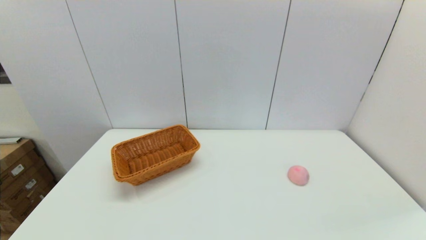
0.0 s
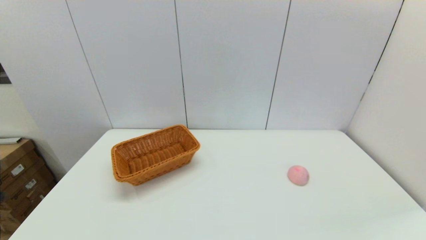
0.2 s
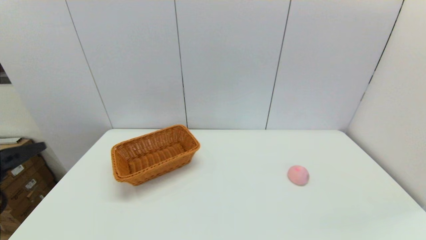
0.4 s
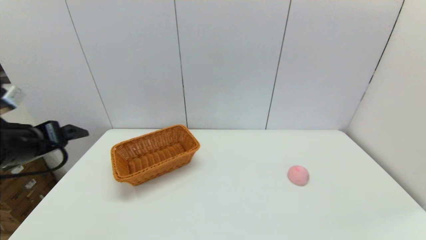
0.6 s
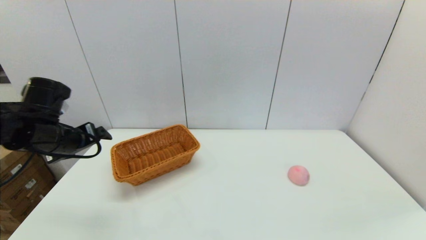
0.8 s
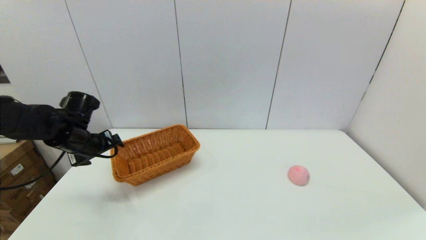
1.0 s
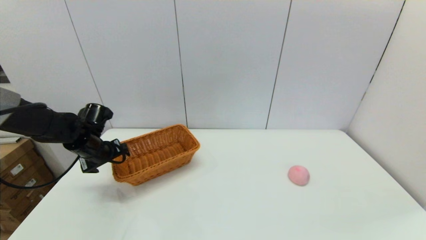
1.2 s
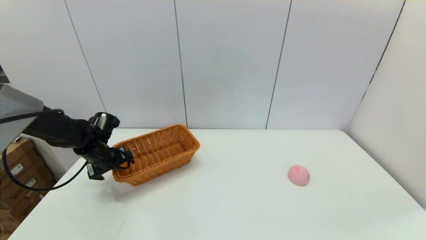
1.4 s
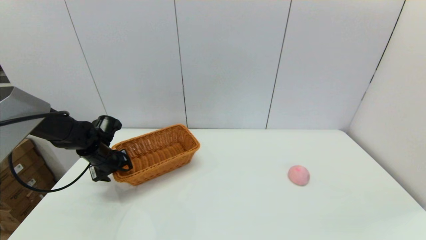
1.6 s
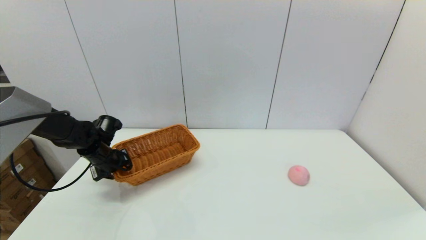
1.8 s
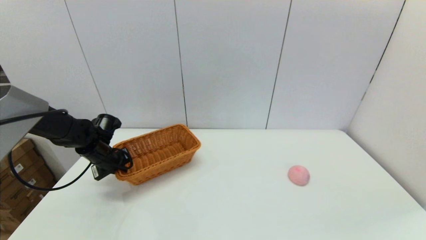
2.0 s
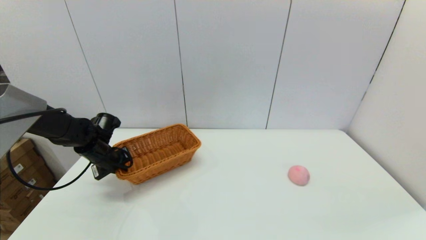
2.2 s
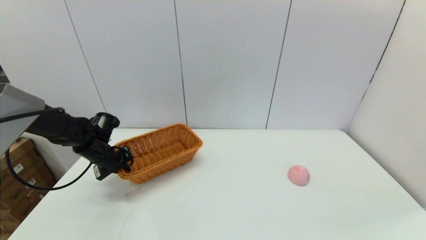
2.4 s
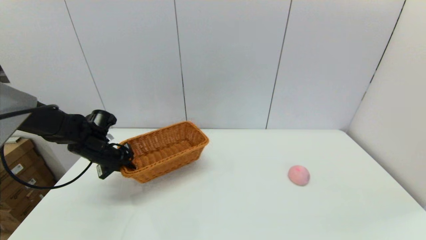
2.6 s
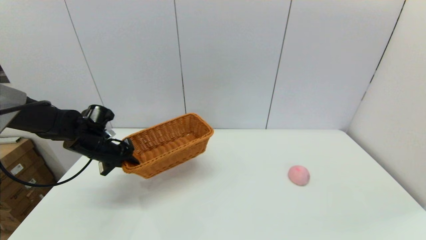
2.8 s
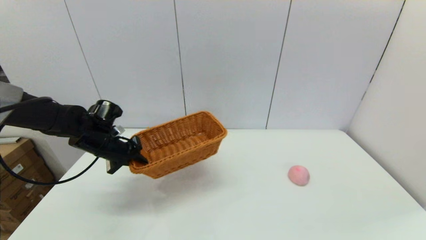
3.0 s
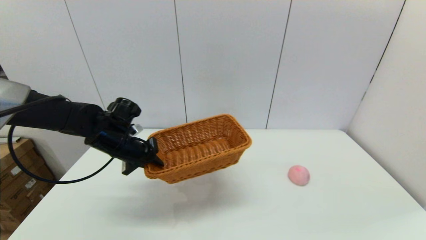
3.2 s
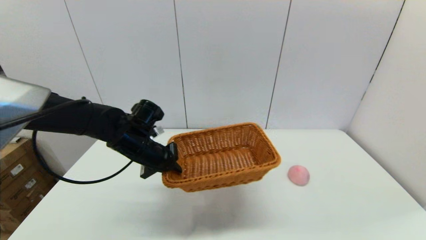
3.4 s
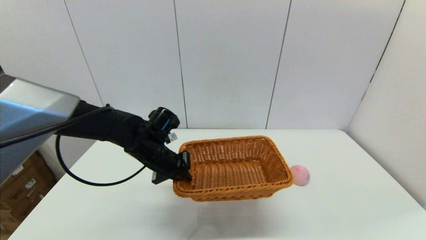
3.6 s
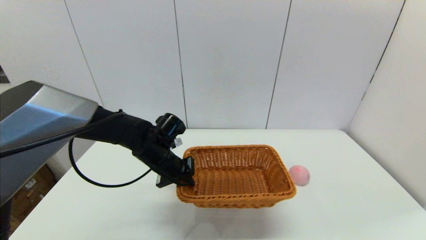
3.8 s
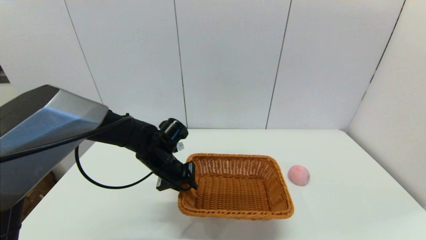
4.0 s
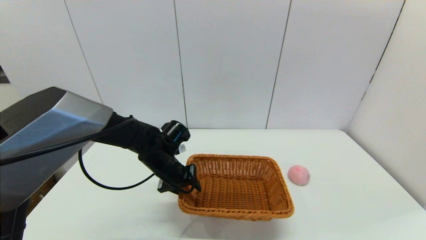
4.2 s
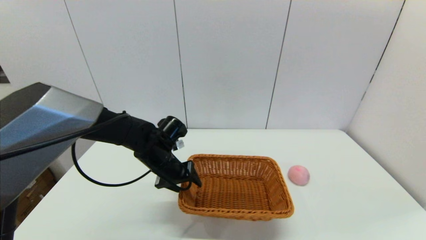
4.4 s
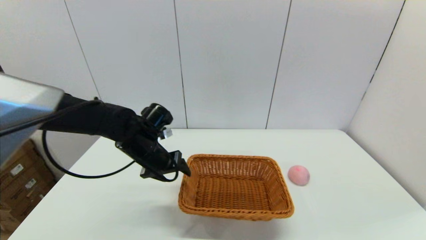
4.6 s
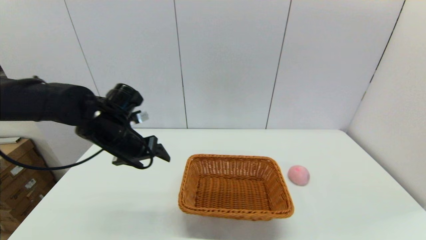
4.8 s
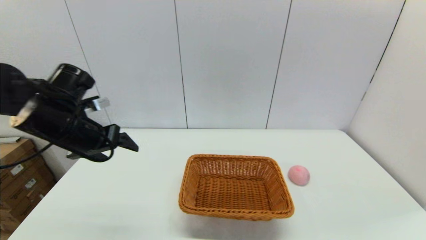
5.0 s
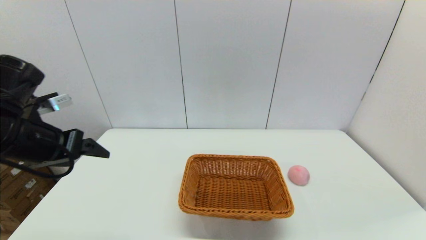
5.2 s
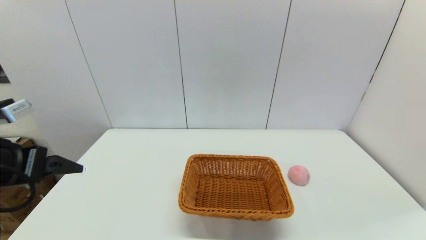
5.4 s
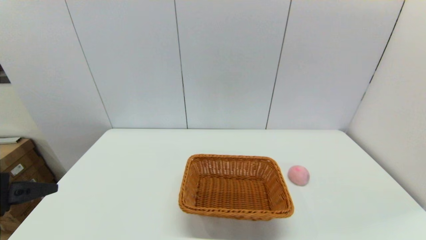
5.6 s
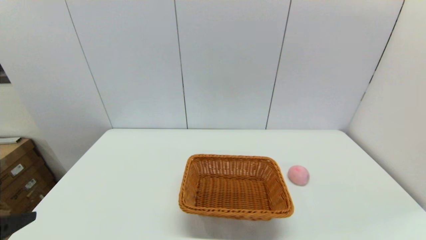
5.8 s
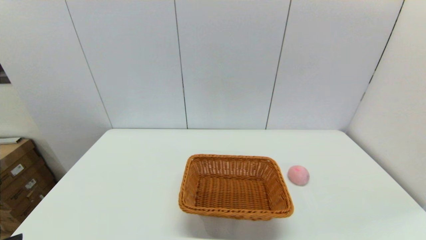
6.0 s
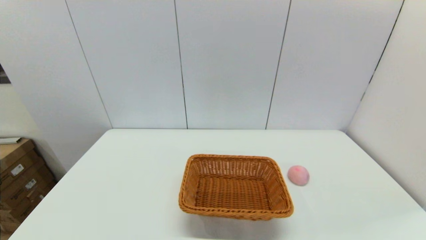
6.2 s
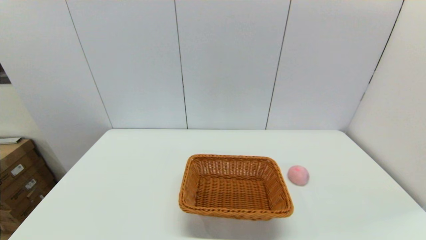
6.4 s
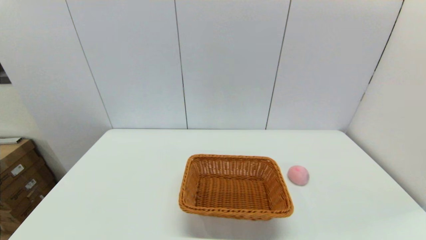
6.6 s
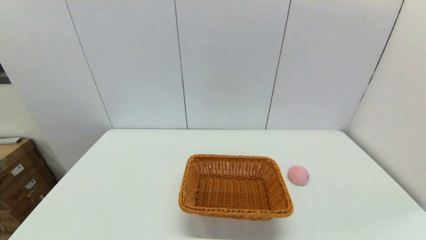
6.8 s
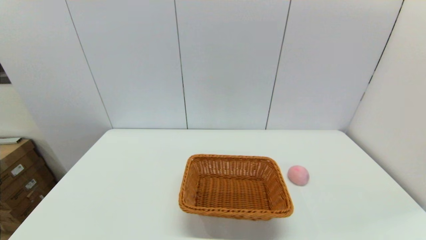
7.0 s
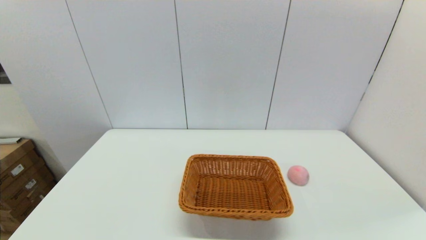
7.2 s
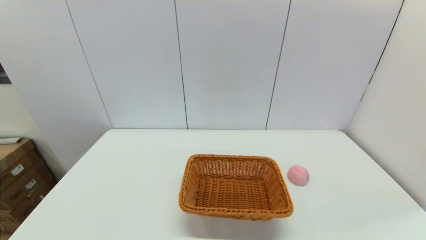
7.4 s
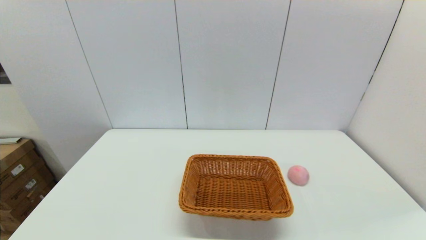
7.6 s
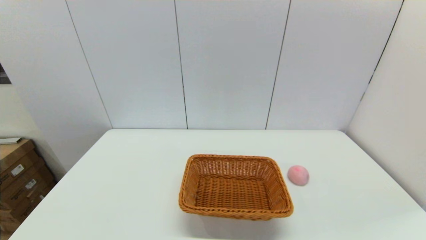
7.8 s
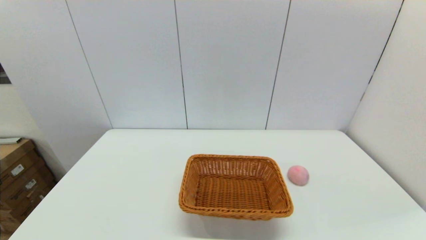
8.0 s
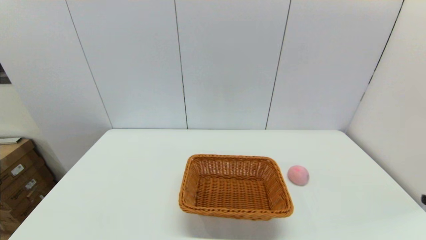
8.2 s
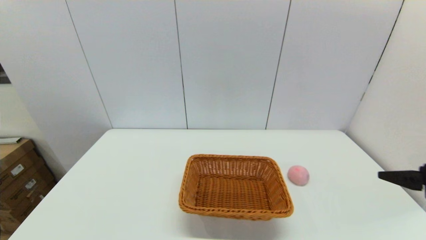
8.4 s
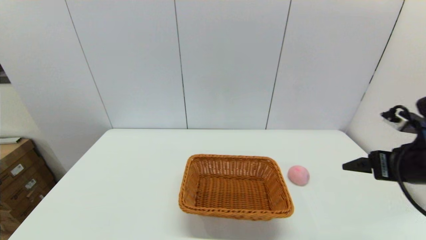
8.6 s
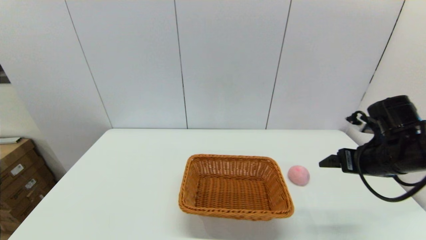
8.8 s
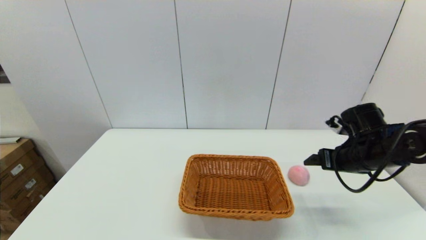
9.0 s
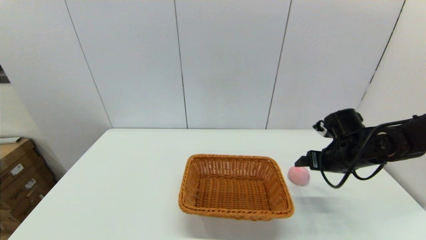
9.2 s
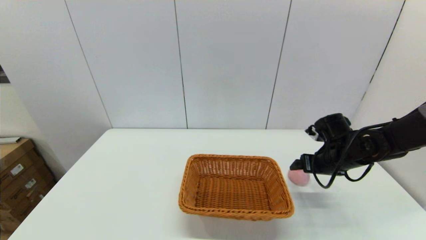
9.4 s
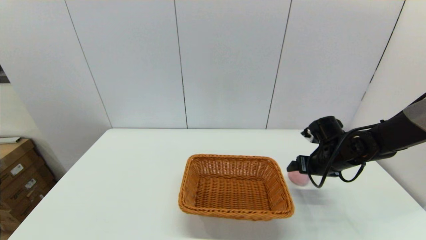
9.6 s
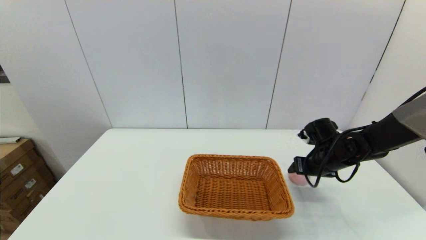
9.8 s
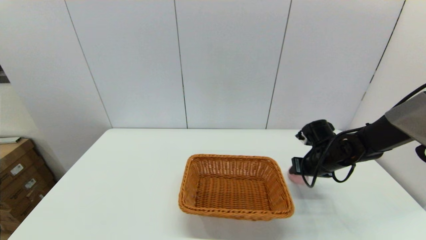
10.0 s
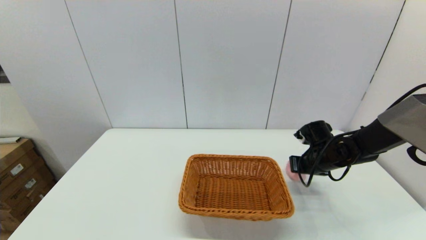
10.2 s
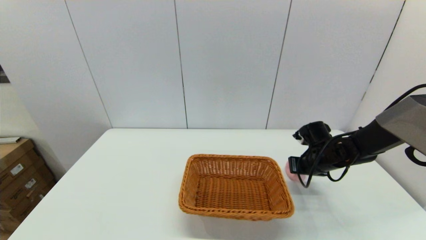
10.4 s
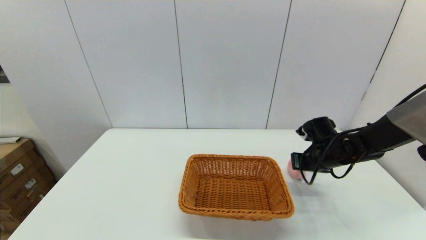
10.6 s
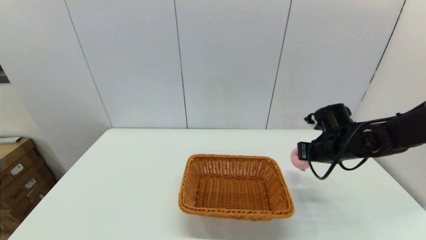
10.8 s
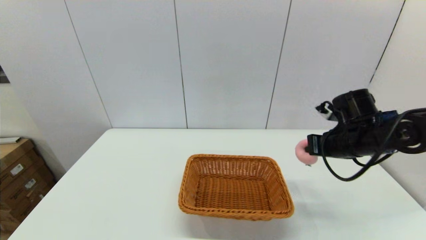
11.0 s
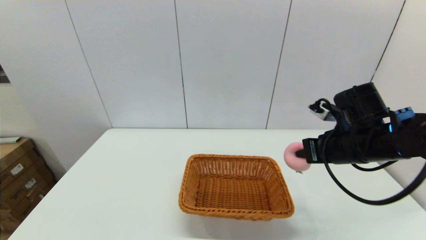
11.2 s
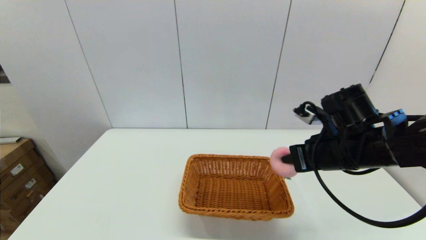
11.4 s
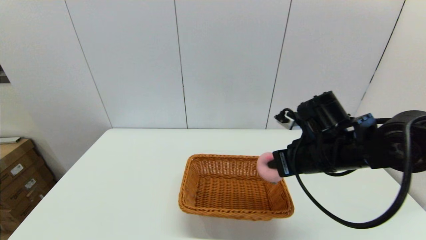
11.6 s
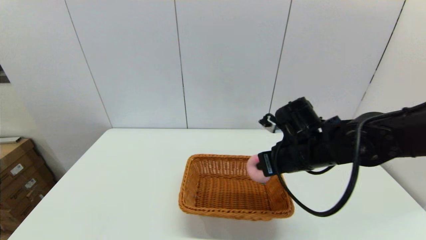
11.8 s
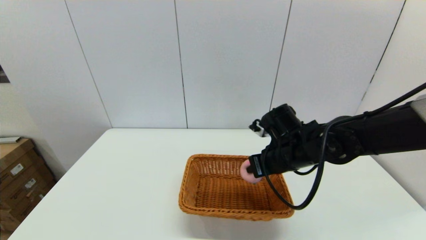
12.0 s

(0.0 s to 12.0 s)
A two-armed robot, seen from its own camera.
Step, 0.0 s - 2.2 s: Grasp the light basket with the left gripper.
Step, 2.4 s - 4.2 s: Place the light basket on the middle of the table with the left gripper.
Step, 4.4 s - 10.4 s: Grasp the peach with the right gripper.
0.0 s - 1.6 s: The left gripper travels forward by some 40 cm.
1.6 s - 3.0 s: The left gripper is displaced upward by roughly 5 cm, and closes its fingers.
3.0 s - 4.4 s: The left gripper travels to the right by some 15 cm, and opens up.
4.4 s - 6.0 s: The left gripper is displaced backward, to the left and upward by about 35 cm.
7.6 s - 9.0 s: The right gripper is displaced forward by some 35 cm.
9.0 s - 10.4 s: The right gripper travels downward and forward by about 10 cm, and closes up.
10.4 s - 12.0 s: The right gripper is displaced to the left, upward and backward by about 20 cm.

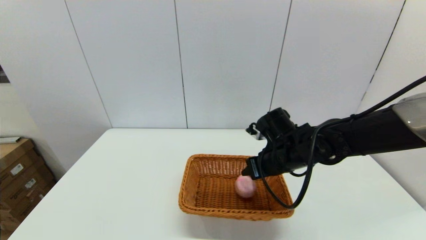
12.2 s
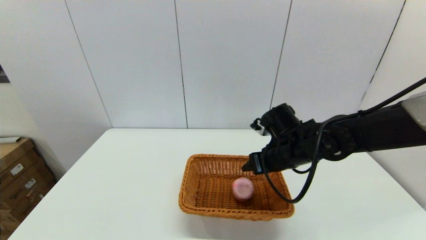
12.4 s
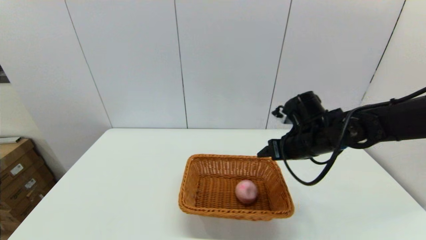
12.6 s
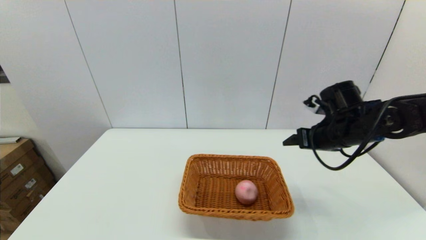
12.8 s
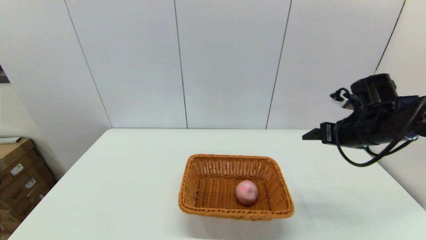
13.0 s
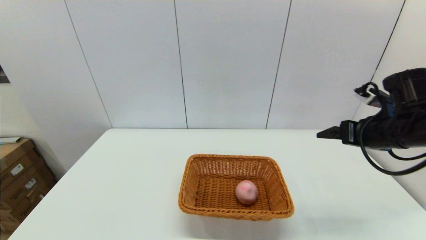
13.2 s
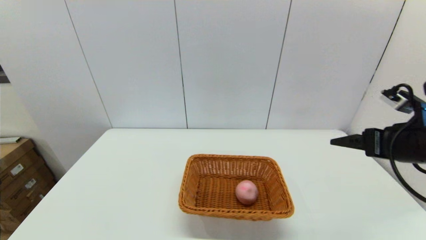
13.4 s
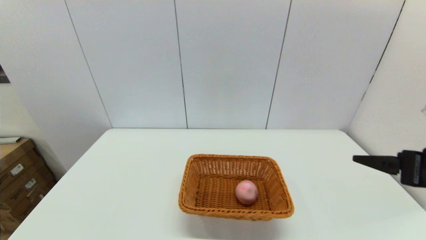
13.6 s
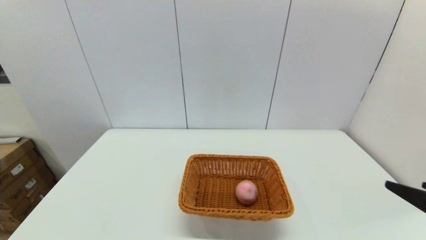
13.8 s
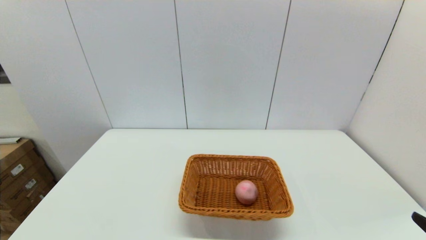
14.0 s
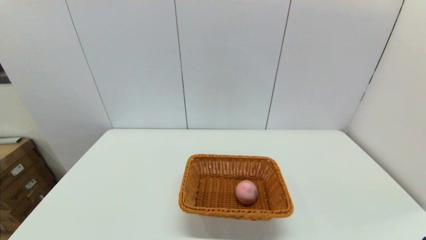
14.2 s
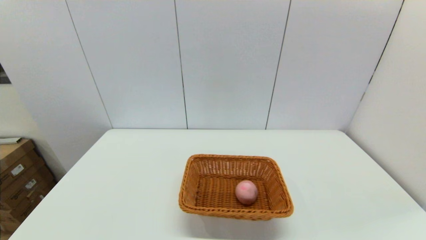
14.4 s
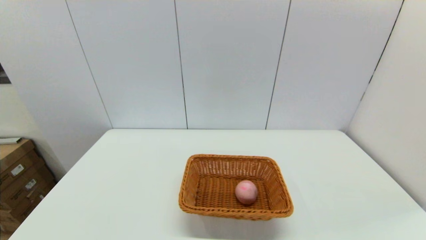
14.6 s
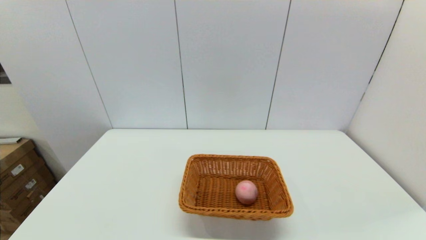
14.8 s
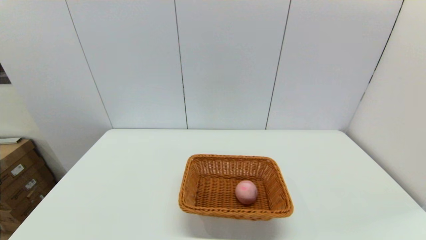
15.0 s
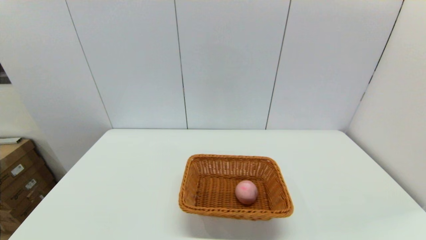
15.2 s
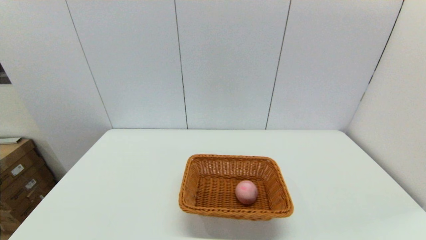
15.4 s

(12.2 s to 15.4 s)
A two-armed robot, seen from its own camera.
12.2 s - 13.8 s: The right gripper travels backward and to the right by roughly 30 cm, and opens.
13.8 s - 15.4 s: The right gripper is displaced downward and backward by approximately 15 cm.

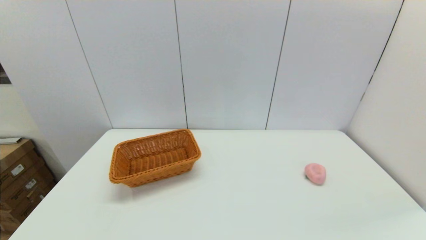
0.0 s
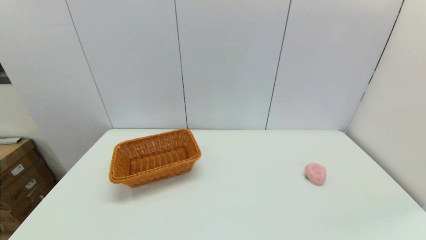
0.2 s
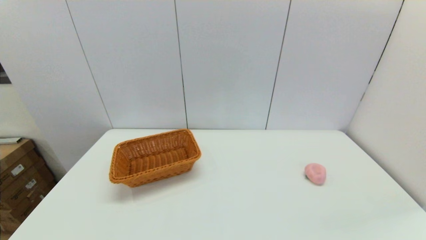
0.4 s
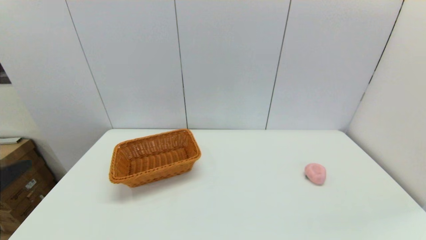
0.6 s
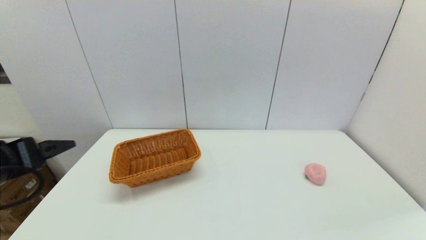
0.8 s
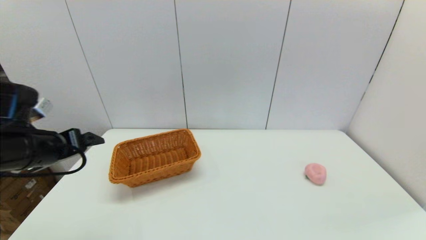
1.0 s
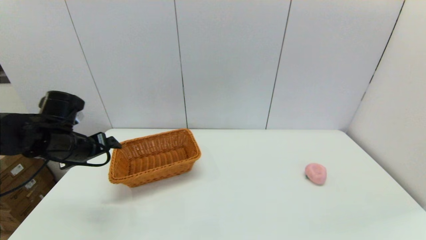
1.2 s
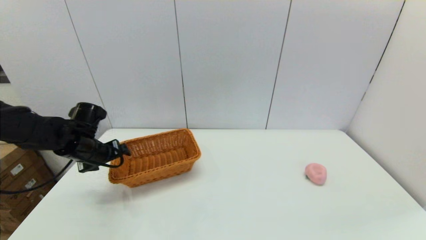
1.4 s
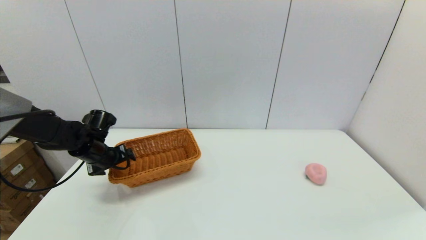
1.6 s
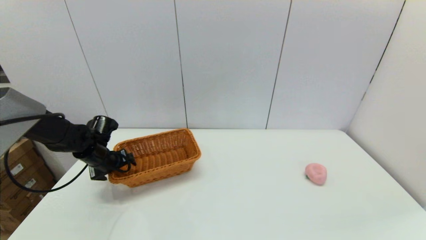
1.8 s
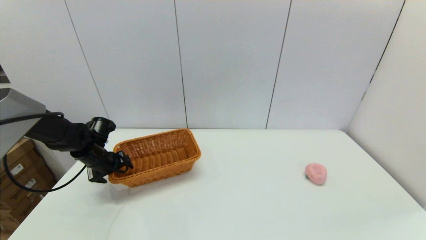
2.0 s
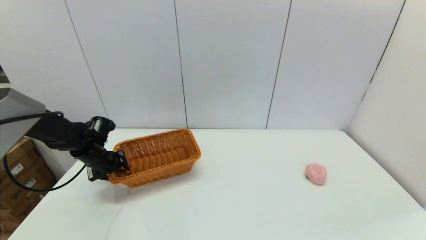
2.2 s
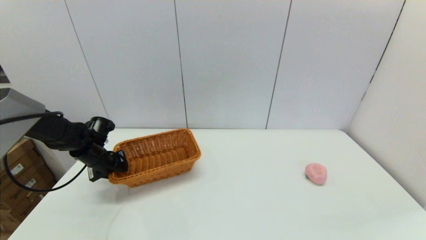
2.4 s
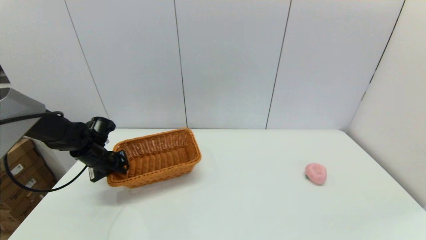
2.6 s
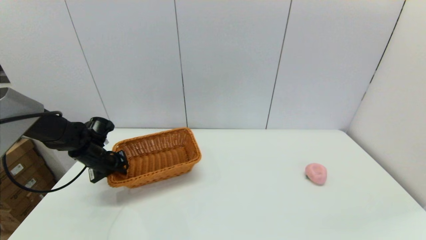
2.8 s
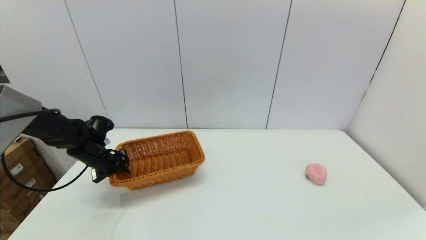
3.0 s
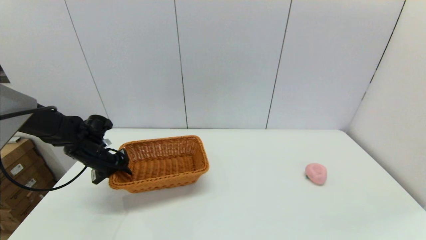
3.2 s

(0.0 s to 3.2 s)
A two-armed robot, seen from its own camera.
Step, 0.0 s - 2.8 s: Grasp the light basket with the left gripper.
0.0 s - 1.6 s: The left gripper goes roughly 40 cm forward.
1.6 s - 3.2 s: The left gripper closes its fingers.
